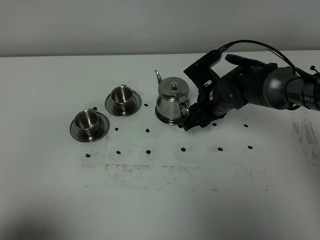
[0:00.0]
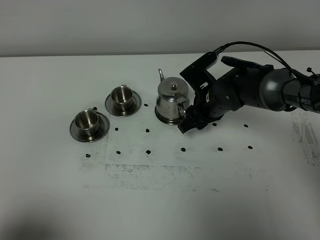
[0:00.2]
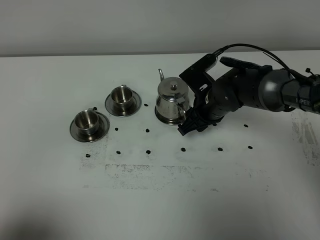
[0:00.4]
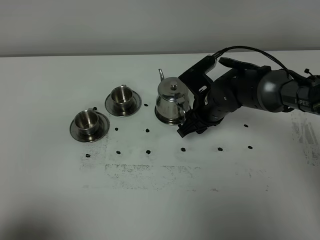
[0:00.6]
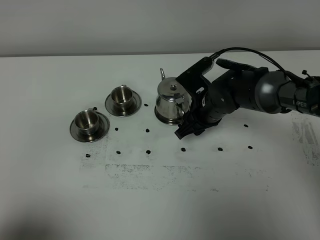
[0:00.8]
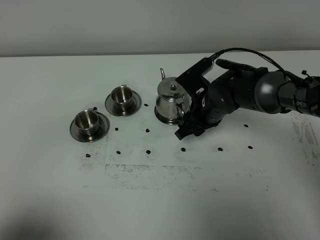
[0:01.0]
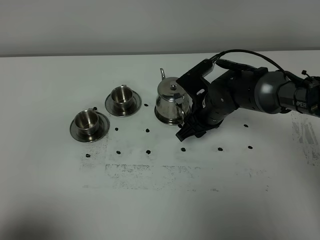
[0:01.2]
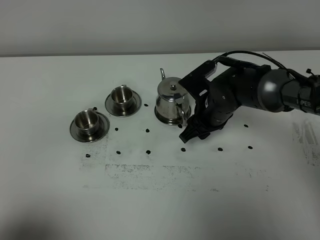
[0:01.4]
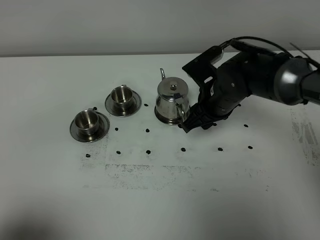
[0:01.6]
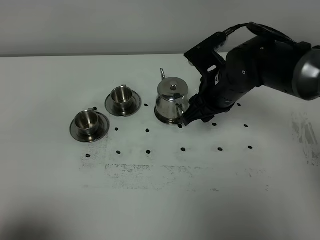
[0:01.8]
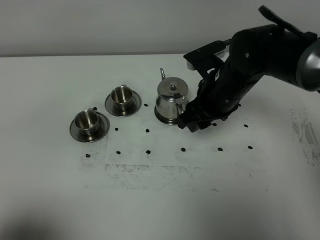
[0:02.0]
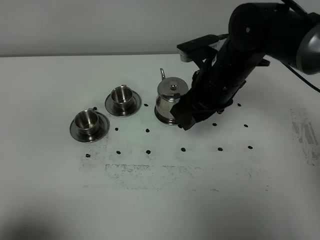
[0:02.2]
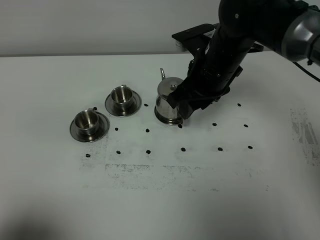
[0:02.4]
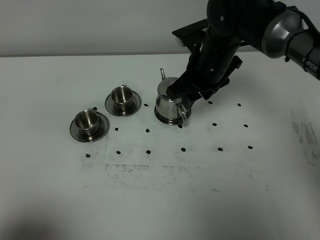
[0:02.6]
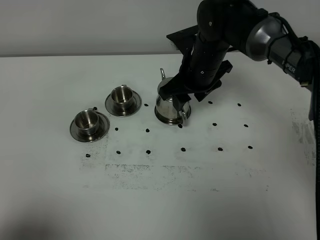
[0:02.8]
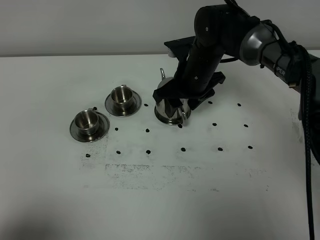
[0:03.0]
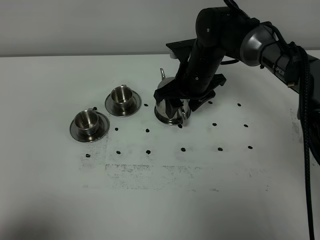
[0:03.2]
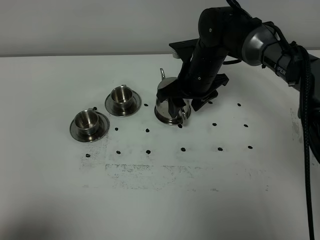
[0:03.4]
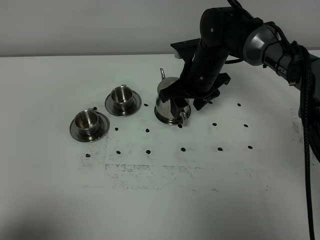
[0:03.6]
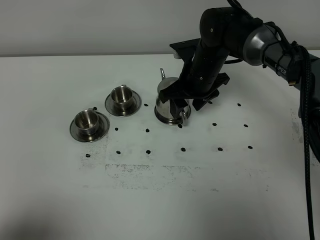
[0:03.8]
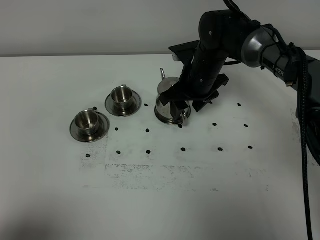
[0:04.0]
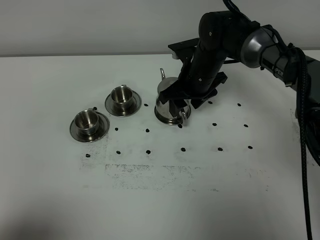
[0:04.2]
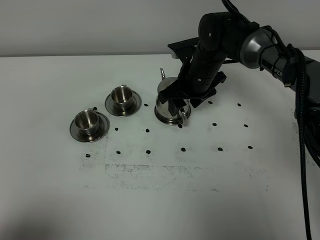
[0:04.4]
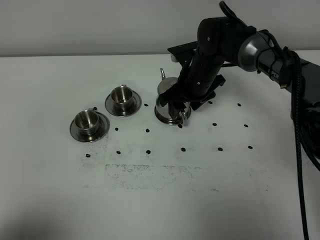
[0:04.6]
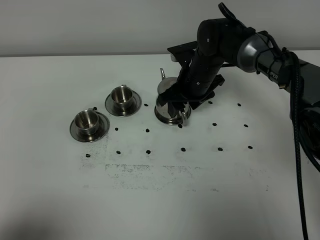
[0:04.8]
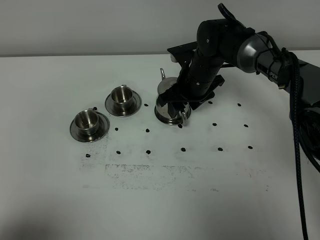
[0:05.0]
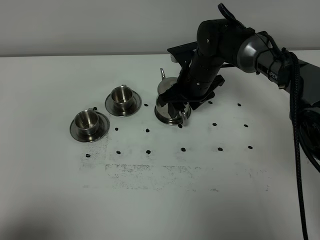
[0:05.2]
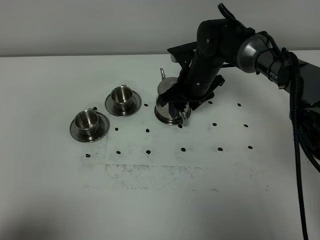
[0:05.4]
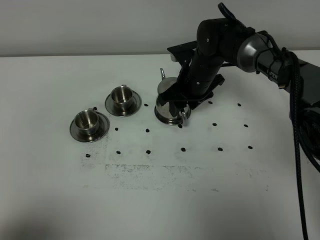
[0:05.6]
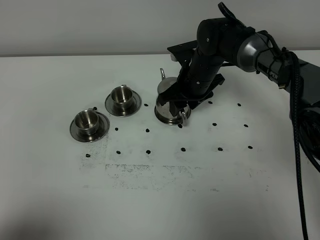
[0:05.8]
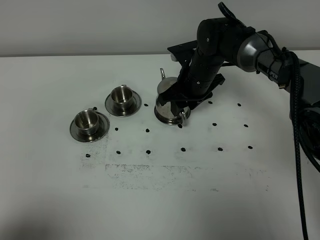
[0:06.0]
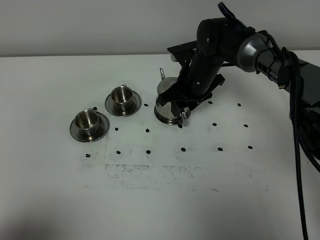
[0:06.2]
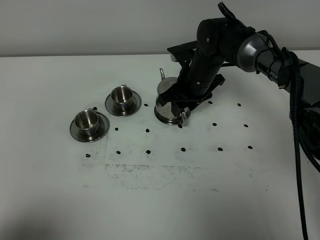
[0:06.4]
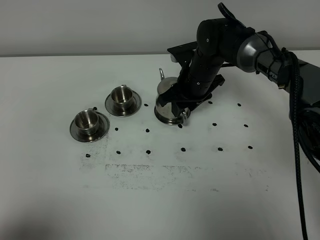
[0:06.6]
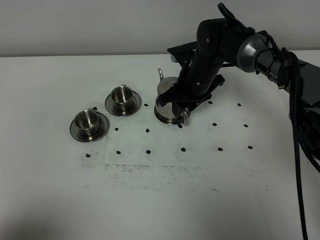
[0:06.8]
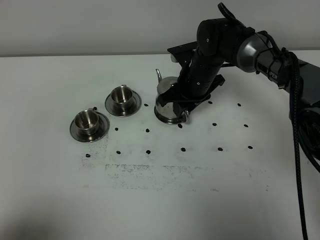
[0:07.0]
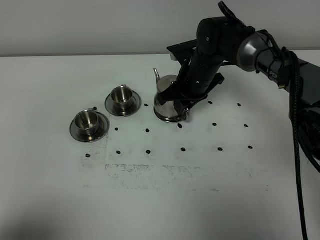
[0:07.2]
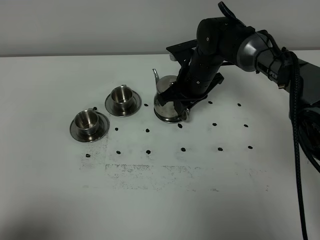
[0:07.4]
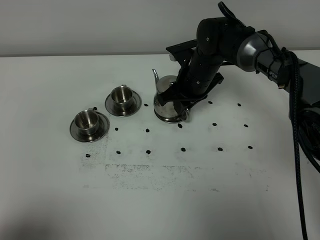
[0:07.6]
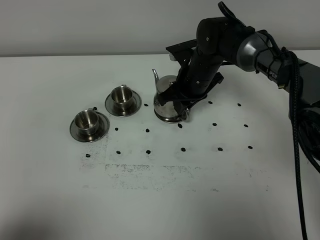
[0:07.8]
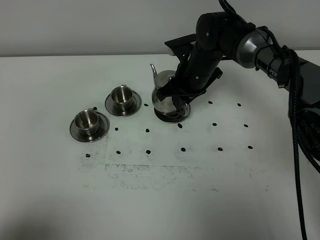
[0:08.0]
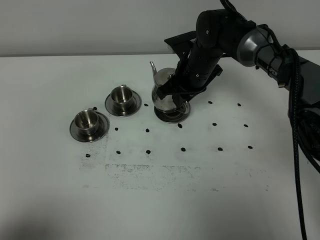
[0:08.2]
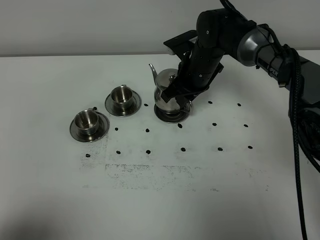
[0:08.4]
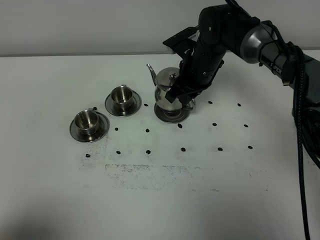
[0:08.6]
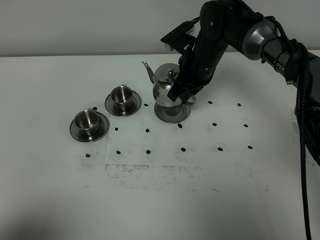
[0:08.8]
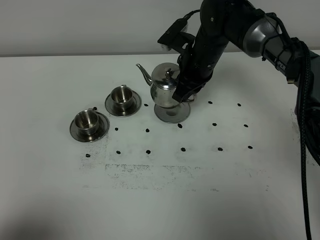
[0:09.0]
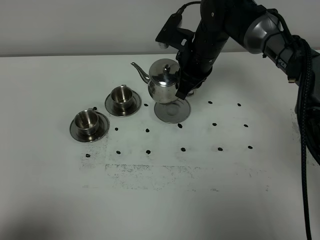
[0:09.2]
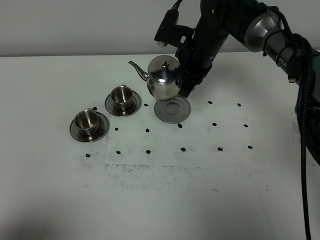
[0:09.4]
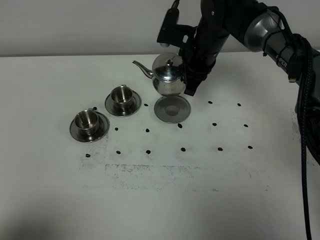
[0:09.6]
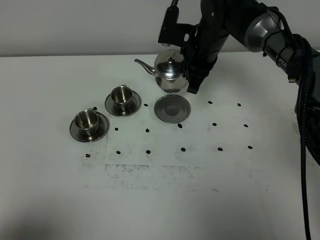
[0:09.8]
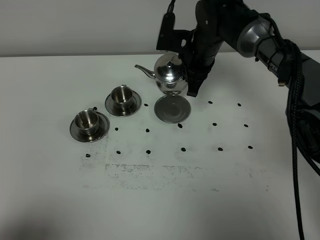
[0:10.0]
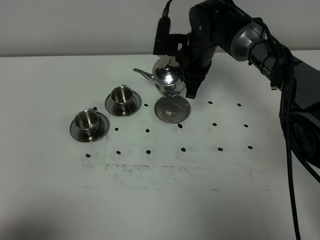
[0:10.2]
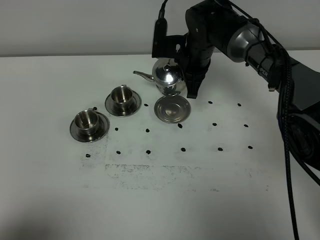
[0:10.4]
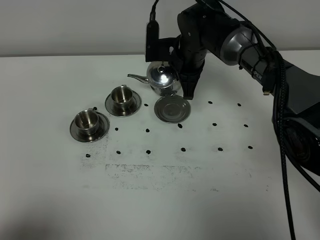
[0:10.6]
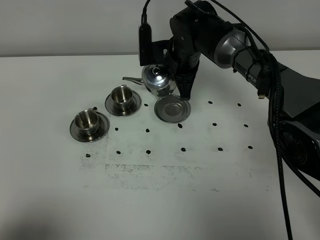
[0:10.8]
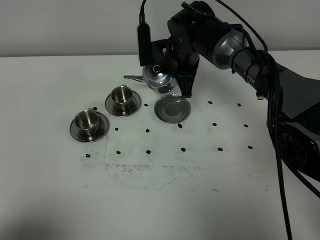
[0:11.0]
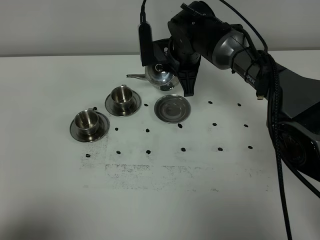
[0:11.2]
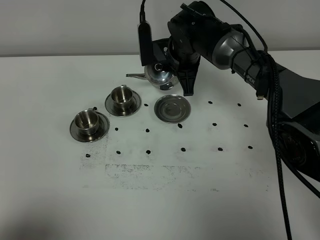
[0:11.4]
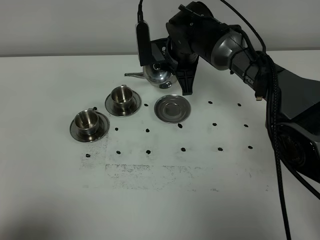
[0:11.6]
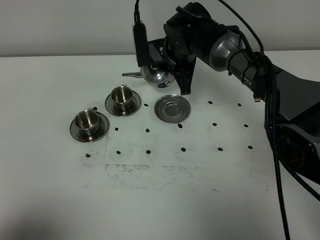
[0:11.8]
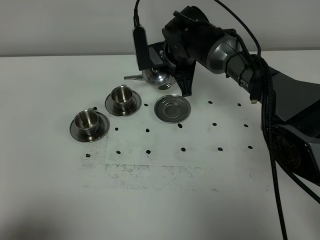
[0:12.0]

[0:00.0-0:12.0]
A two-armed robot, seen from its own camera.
Task of the whole recording: grasp the stainless steel teapot and pour the tea into the two stainless steel teacups one by one, put the stainless steel teapot back in its original place.
Step, 0:00.0 to 0:08.0: Pick up the teapot with the right gripper.
0:00.0 to 0:01.6: The right gripper moves some 5 cm.
0:01.6 to 0:03.0: The right gripper goes about 5 cm forward.
0:03.0 to 0:04.4: The grippers move only a little.
0:04.4 to 0:06.0: Both grippers stay put.
0:06.0 to 0:07.6: The right gripper closes its fingers.
0:10.4 to 0:12.0: There are only small adjustments of the grippers.

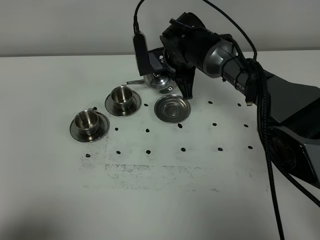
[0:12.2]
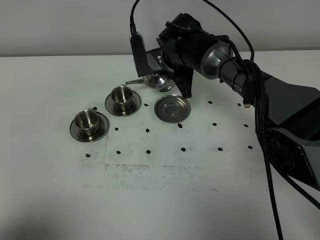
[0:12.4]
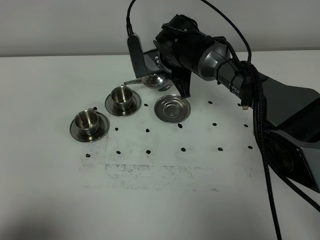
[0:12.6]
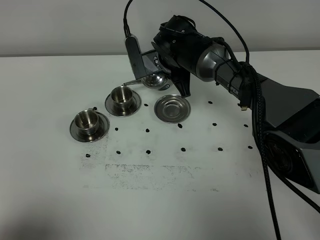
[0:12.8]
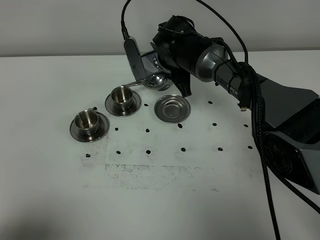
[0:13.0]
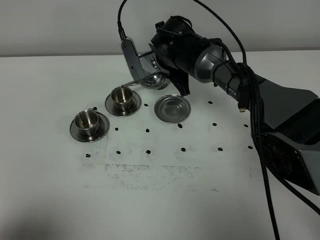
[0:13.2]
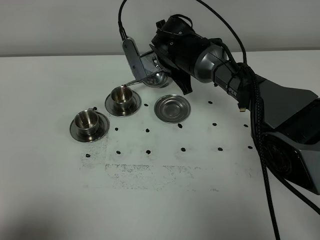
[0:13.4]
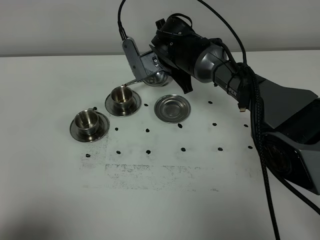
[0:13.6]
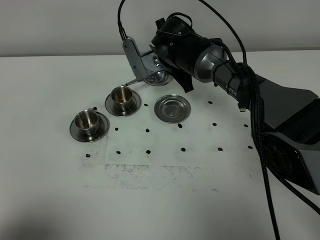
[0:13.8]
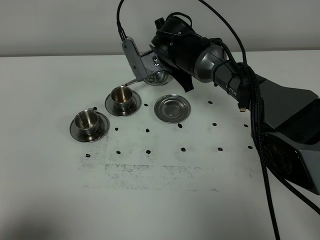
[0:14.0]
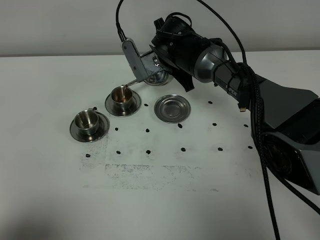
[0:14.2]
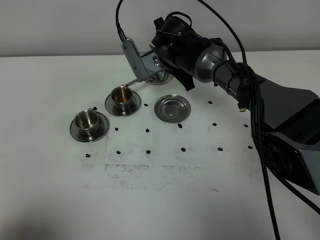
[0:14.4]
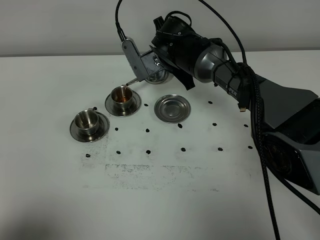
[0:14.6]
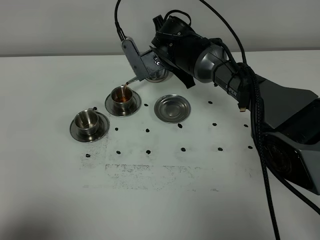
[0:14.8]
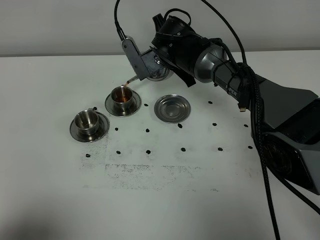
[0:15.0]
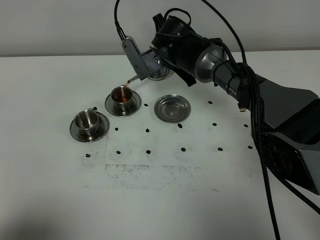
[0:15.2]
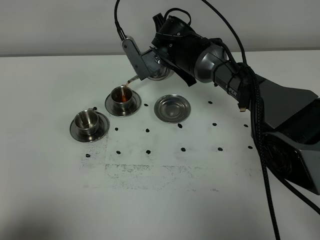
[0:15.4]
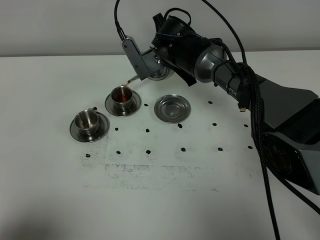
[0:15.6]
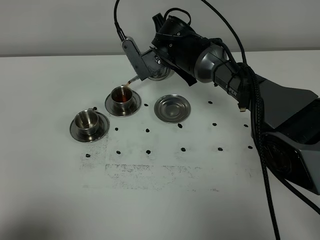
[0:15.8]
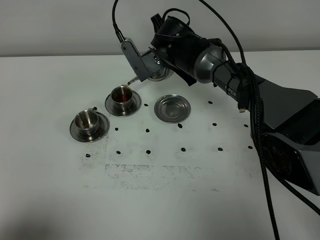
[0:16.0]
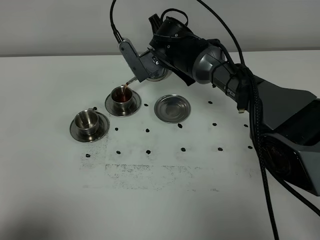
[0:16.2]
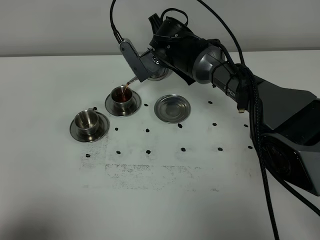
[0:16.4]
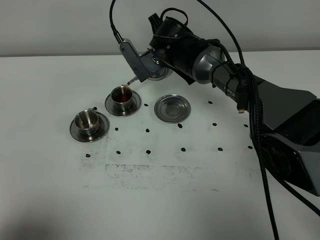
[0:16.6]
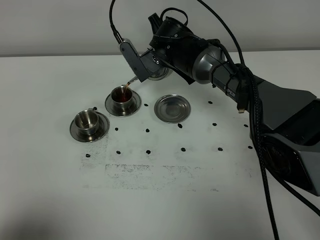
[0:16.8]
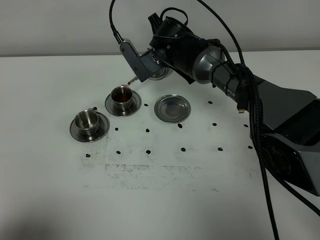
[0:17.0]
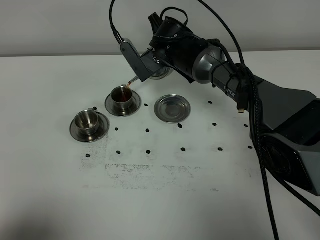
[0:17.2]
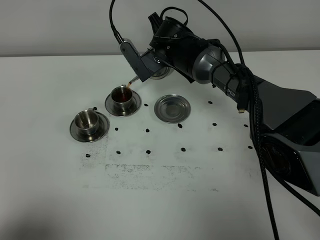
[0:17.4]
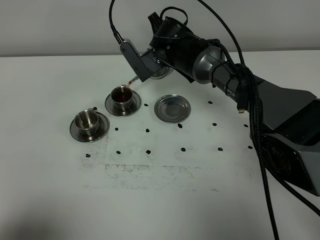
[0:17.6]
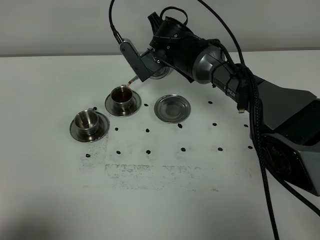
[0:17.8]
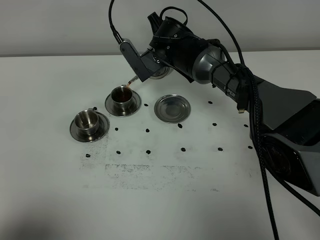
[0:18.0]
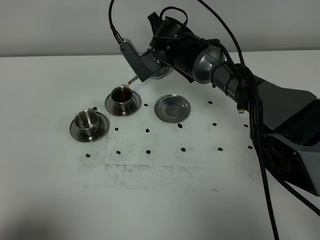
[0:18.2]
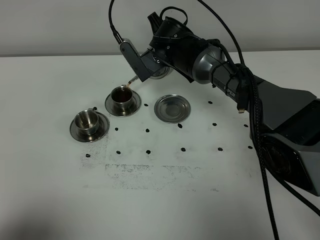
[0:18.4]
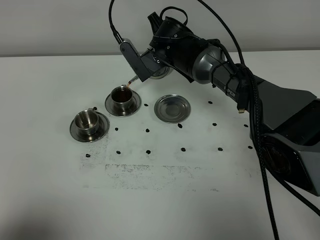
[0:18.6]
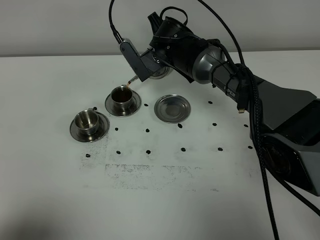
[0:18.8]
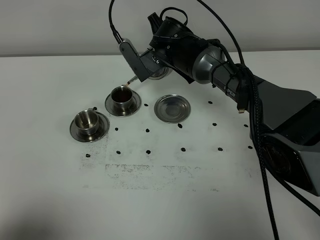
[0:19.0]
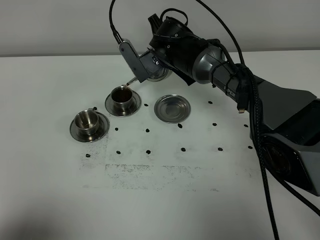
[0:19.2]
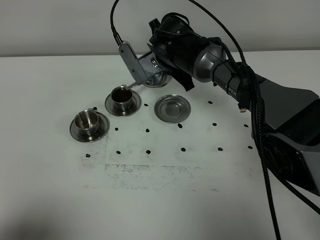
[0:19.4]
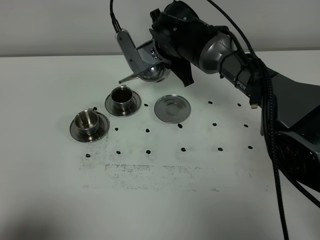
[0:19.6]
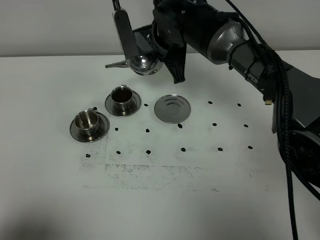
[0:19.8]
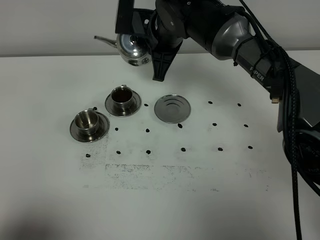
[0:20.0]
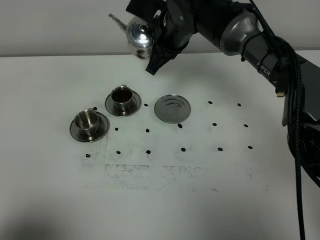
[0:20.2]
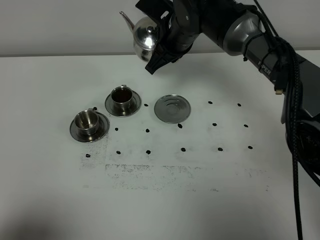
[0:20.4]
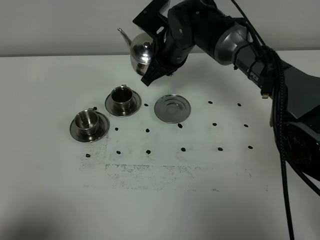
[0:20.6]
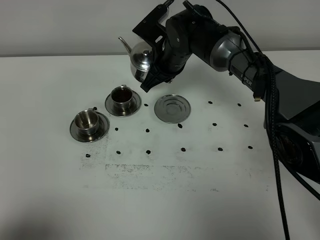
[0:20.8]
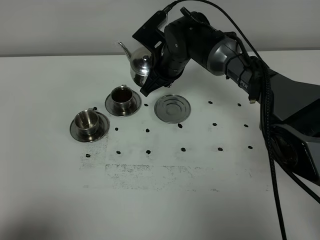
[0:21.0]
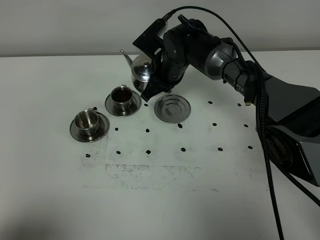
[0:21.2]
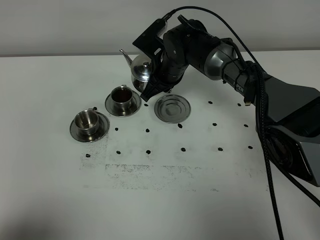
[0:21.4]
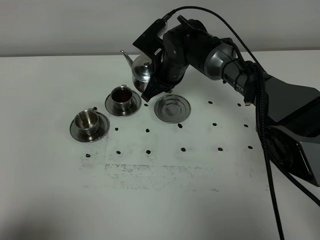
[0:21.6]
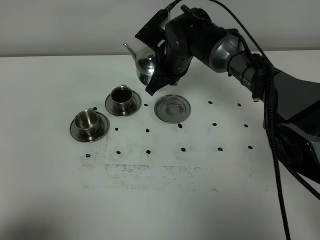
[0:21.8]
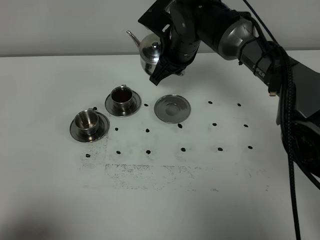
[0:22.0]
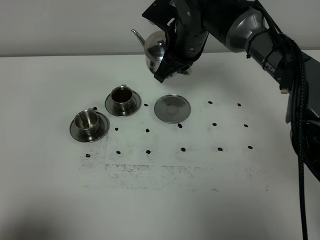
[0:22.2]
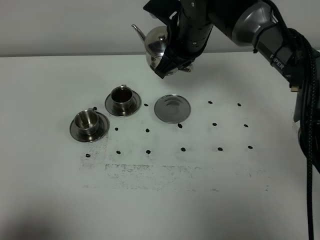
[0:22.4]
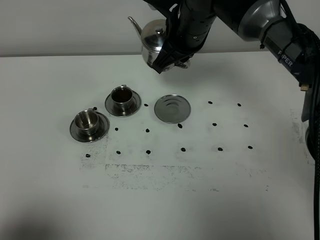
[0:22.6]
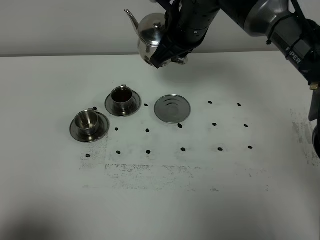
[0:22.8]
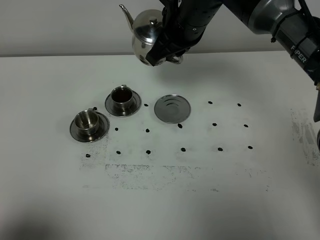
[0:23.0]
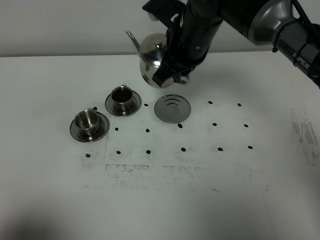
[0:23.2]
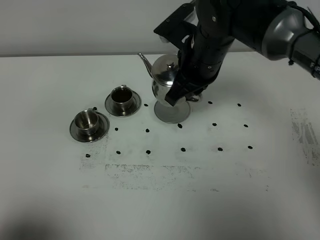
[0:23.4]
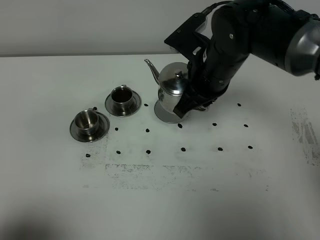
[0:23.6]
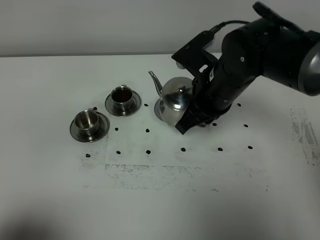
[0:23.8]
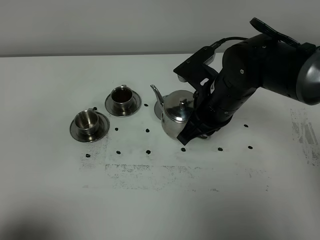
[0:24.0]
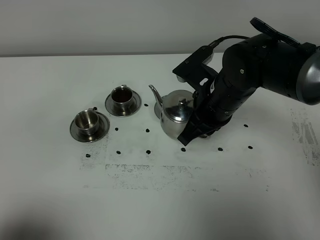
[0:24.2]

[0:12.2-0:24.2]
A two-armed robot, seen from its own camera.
Task of the whole recording: grasp the stainless steel teapot and pour the tea into the two stainless steel teacups one by one, put the stainless steel teapot back in its original place.
0:12.2 to 0:13.8: The grippers make only small movements.
0:13.8 to 0:15.2: The grippers make only small movements.
0:15.2 to 0:16.6: Both grippers stay put.
0:16.6 to 0:18.2: Both grippers stay put.
0:18.2 to 0:19.8: The right gripper is displaced upward by about 5 cm.
0:19.8 to 0:21.2: The right gripper travels downward by approximately 10 cm.
0:21.2 to 0:22.6: The right gripper shifts some 15 cm upward.
0:22.6 to 0:24.2: The right gripper heads backward and downward, covering about 10 cm.
